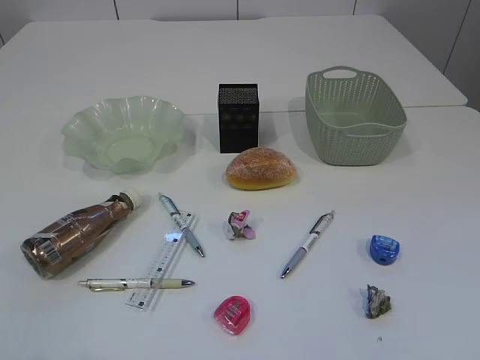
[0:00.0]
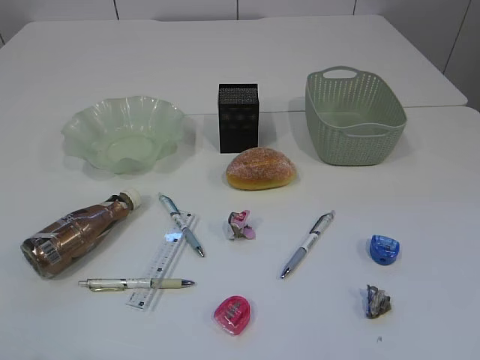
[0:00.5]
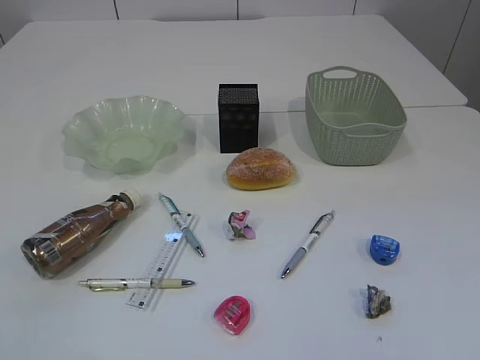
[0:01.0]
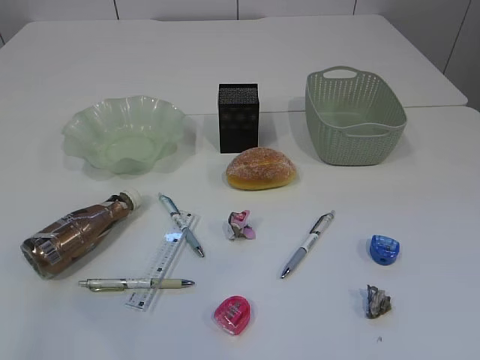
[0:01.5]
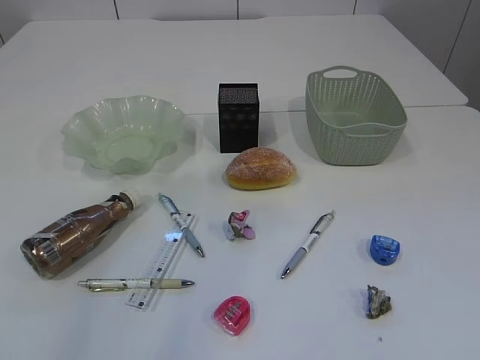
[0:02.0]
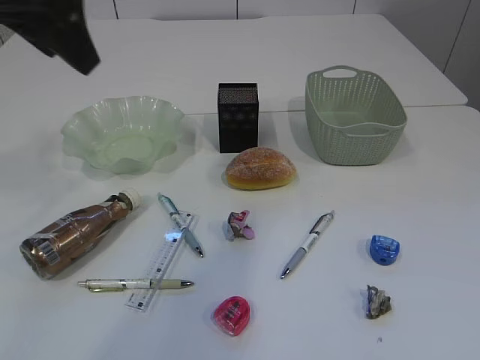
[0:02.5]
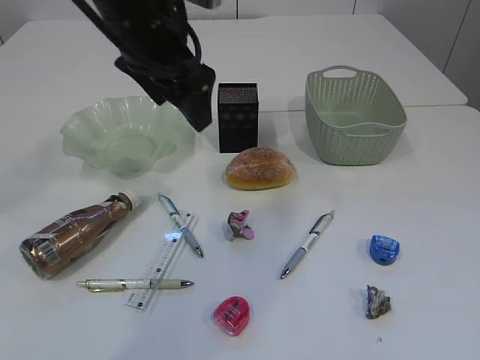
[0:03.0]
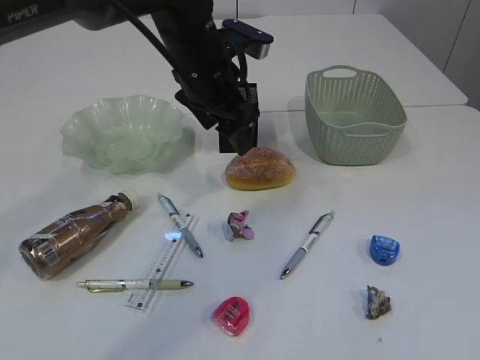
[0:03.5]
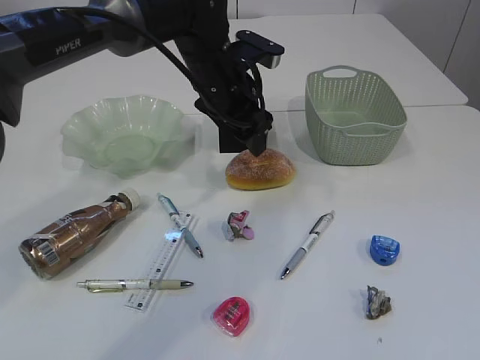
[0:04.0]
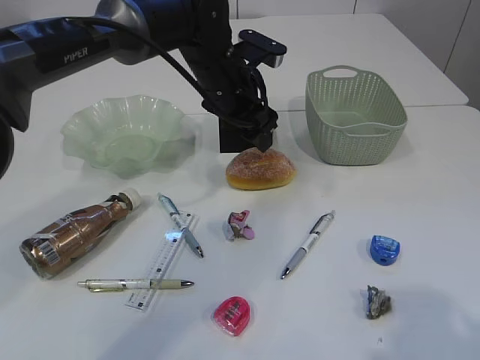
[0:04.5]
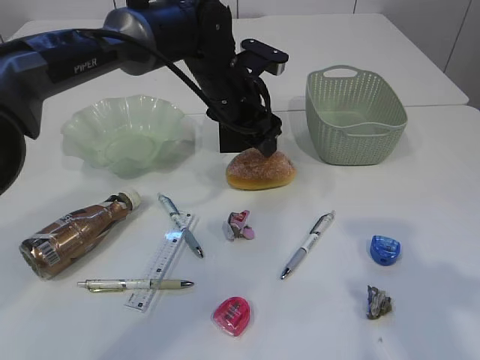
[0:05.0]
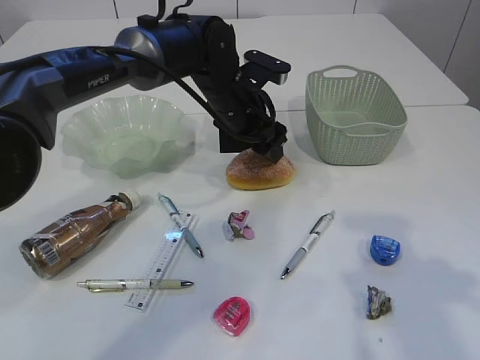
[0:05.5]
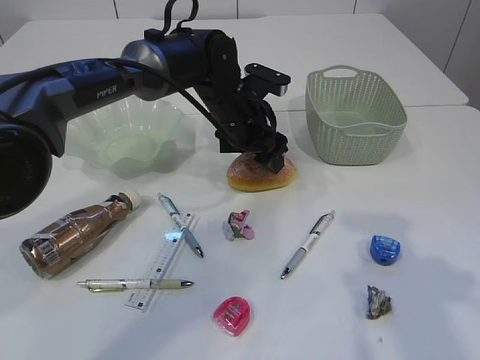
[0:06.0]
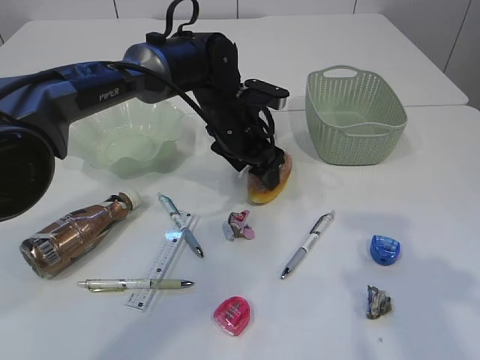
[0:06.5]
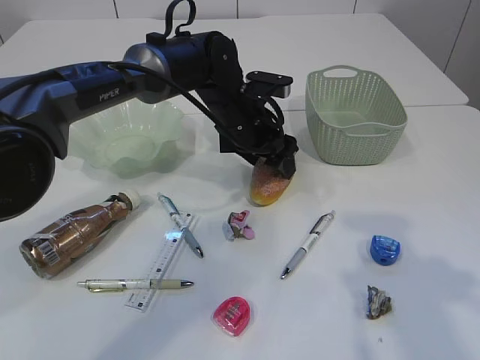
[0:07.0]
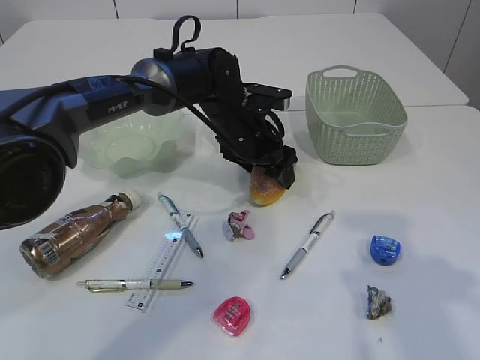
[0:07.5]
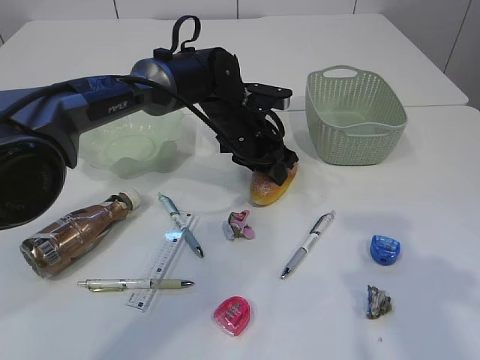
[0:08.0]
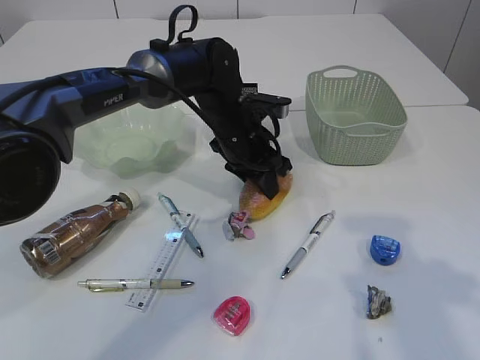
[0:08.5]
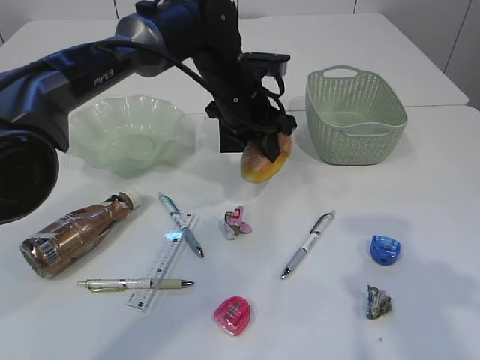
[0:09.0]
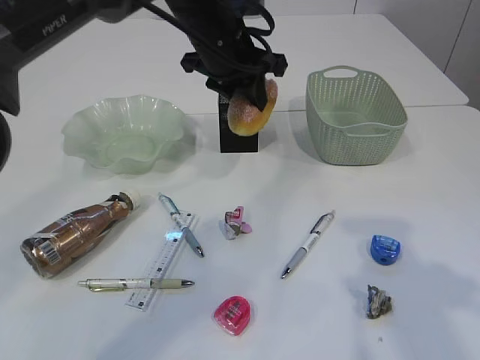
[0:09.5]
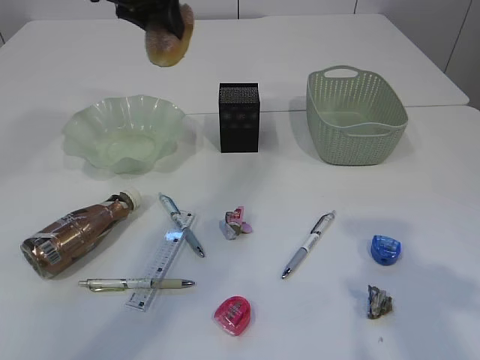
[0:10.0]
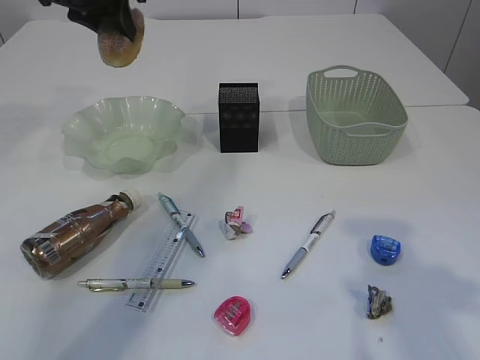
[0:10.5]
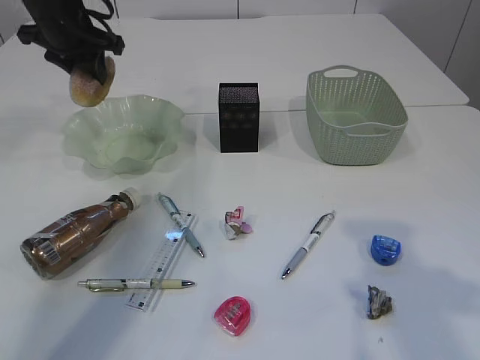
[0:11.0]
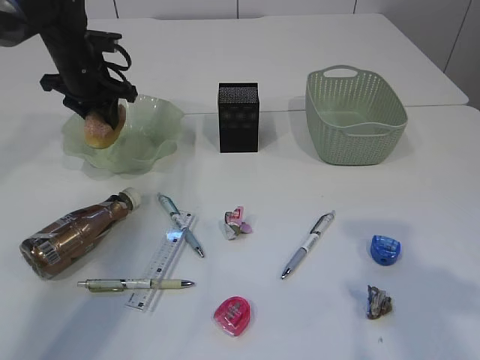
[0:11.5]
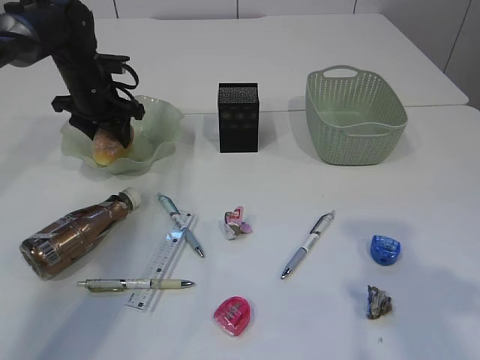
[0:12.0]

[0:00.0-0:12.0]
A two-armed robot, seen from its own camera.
0:02.0 to 0:04.0: The left gripper travels to the right, forward and downward by some 40 cm, and opens its fingers.
0:04.0 to 0:06.0: The left gripper travels downward by some 5 cm, while the right gripper is displaced forward by roughly 20 cm.
0:06.0 to 0:08.0: The left gripper closes up.
0:08.0 to 0:10.0: The left gripper shifts some 25 cm upward and to the left.
0:10.0 to 0:12.0: The left gripper heads downward and to the left, covering about 20 cm.

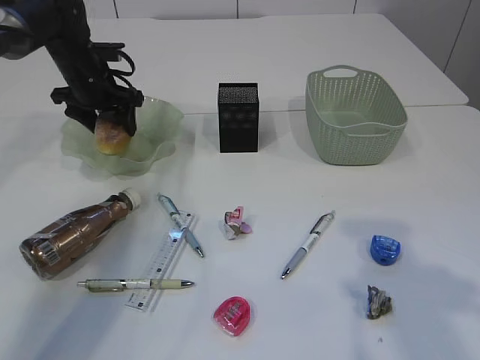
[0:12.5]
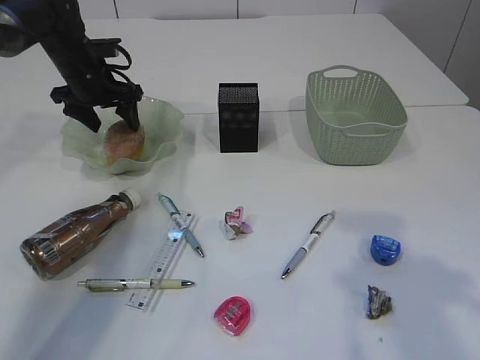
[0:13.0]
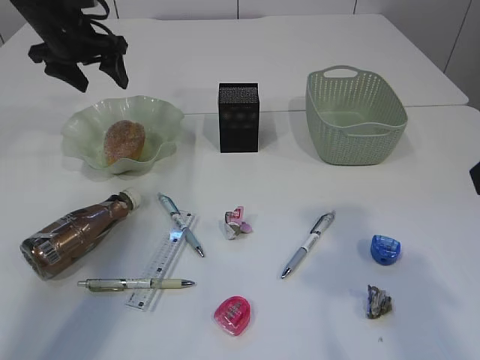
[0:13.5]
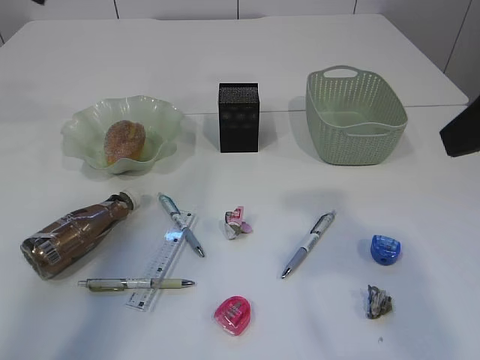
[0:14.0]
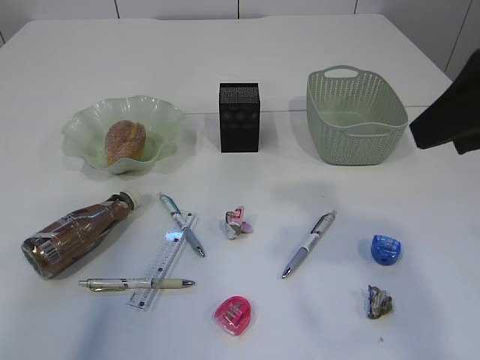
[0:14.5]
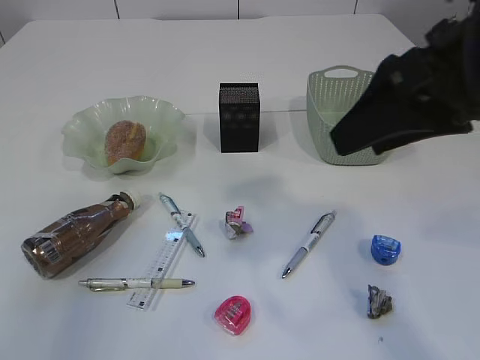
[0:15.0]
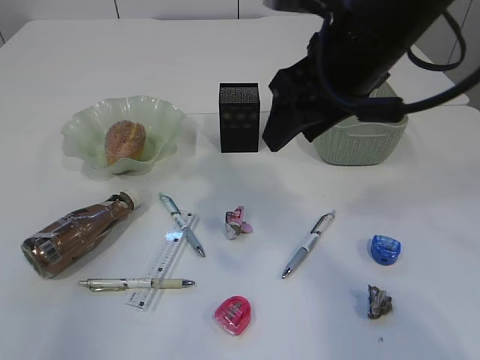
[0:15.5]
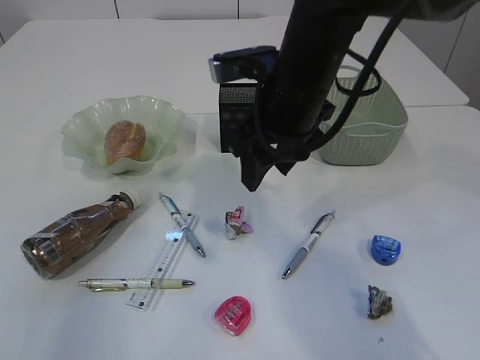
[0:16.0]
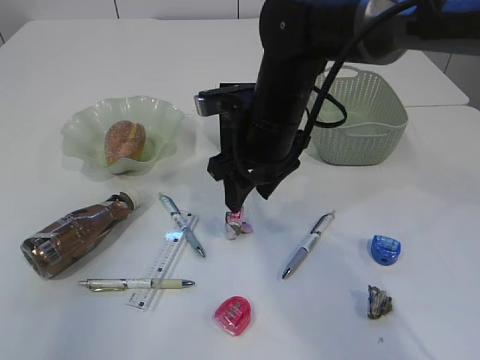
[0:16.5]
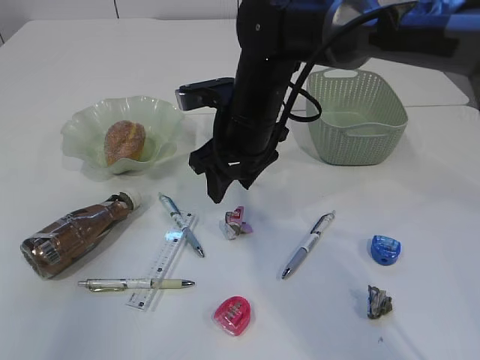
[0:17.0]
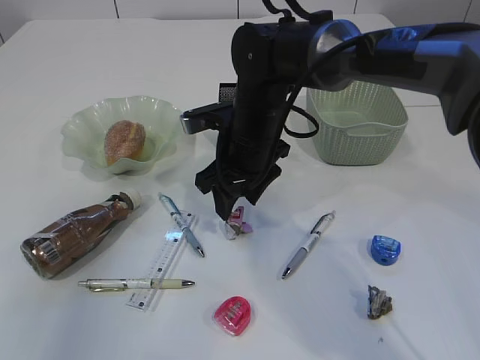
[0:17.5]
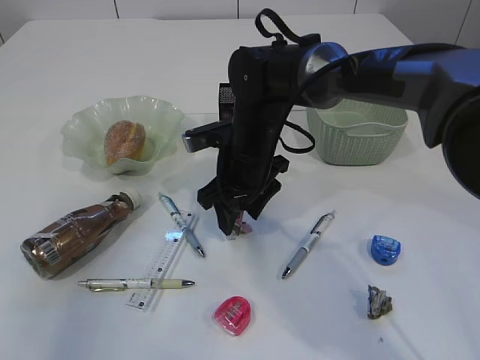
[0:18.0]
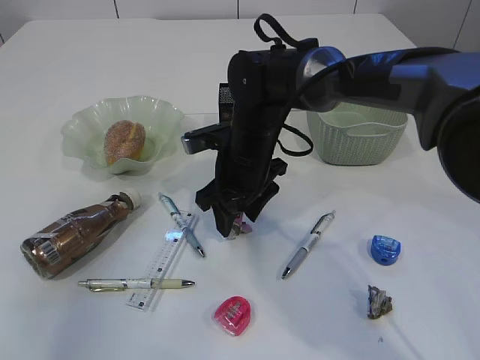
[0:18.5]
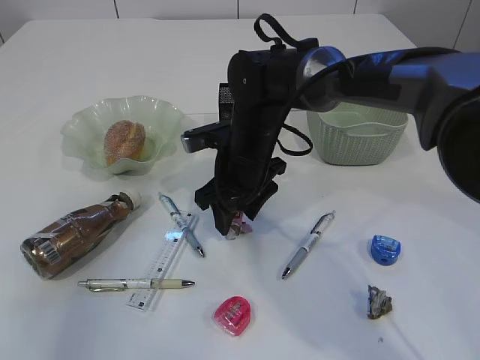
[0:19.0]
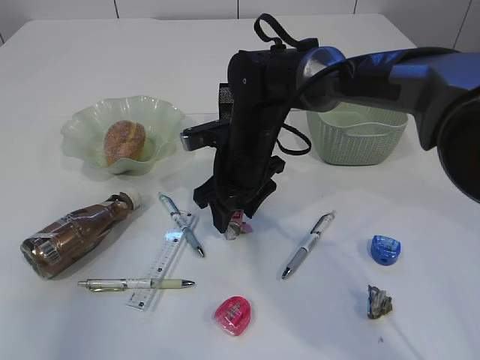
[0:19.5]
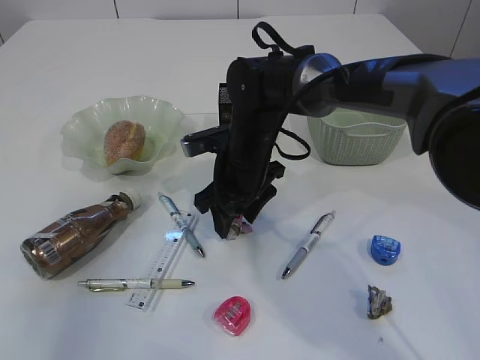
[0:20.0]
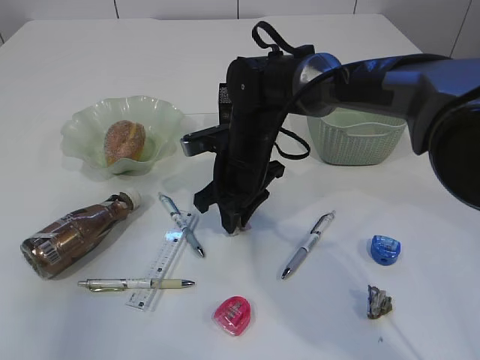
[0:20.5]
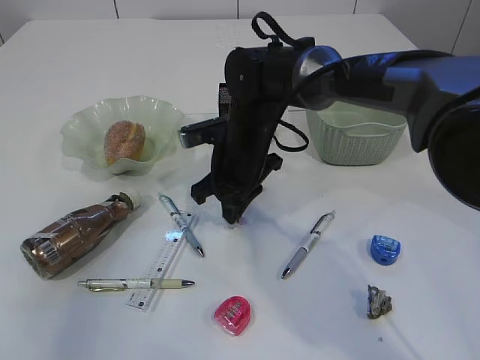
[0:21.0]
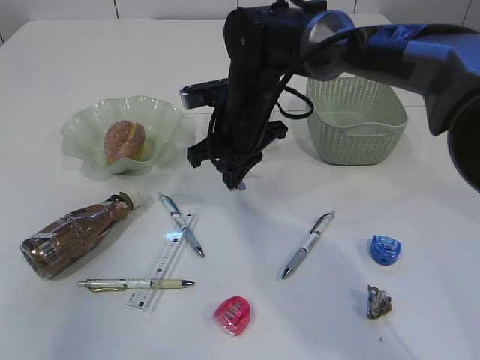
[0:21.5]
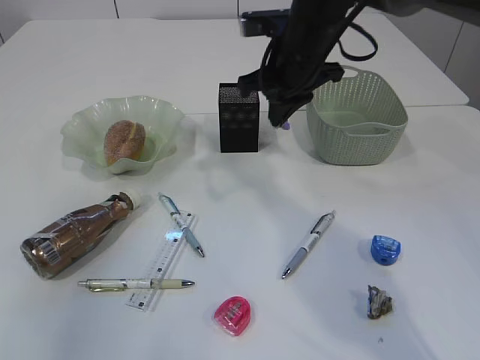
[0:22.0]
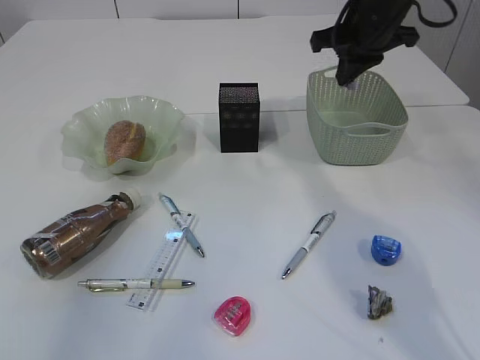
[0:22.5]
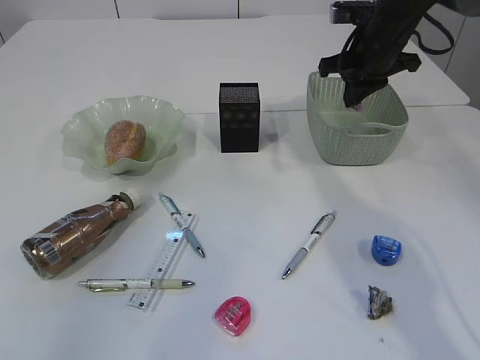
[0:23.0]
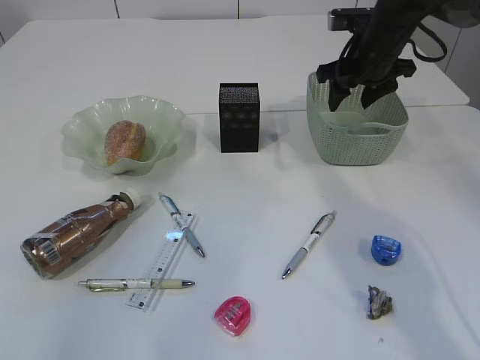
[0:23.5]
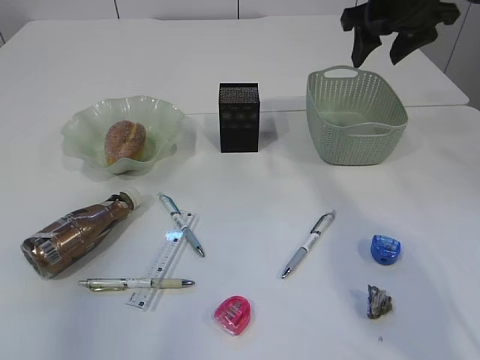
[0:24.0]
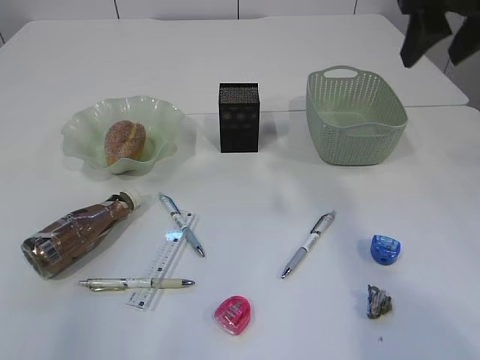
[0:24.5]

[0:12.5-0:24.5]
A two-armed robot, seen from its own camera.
Step, 0:14.0 to 0:21.5: Pick up the waste paper.
Step, 0:22.0 to 0:24.0: Place the waste paper in the basket.
0:12.5 to 0:14.5: The right gripper shifts by approximately 5 cm, while the left gripper is displaced upward and backward by some 35 cm.
0:14.5 to 0:16.5: The right gripper is displaced to the left, forward and downward by about 30 cm. The left gripper is displaced backward by roughly 10 cm.
0:16.5 to 0:18.5: The right gripper goes roughly 5 cm downward.
0:18.5 to 0:20.5: The right gripper closes its fingers.
0:20.5 to 0:22.5: The right gripper shifts approximately 25 cm to the right, upward and forward, and closes.
0:22.5 to 0:24.5: The right gripper travels backward and upward by roughly 15 cm, and opens.

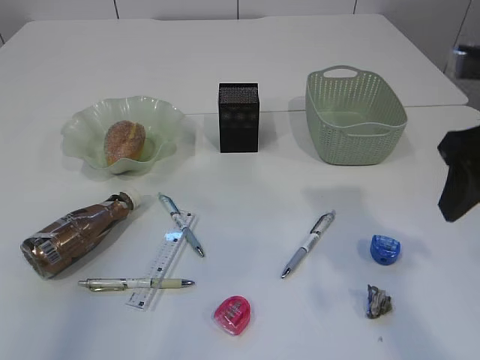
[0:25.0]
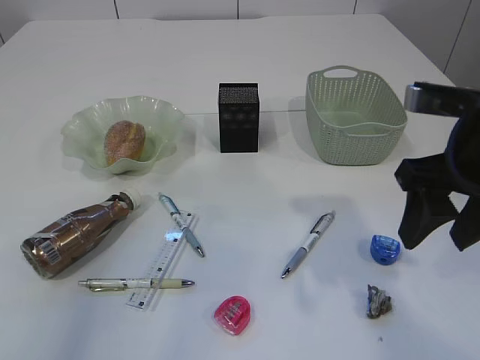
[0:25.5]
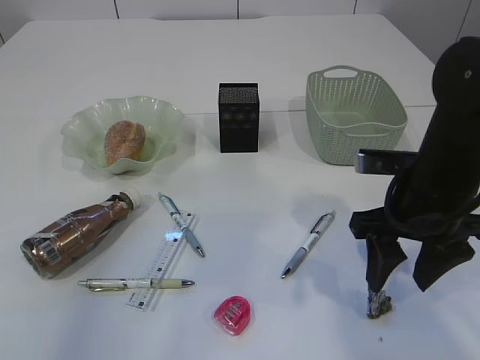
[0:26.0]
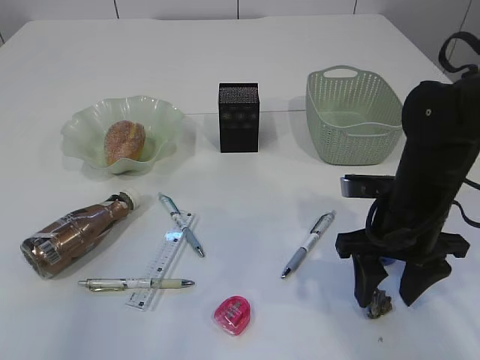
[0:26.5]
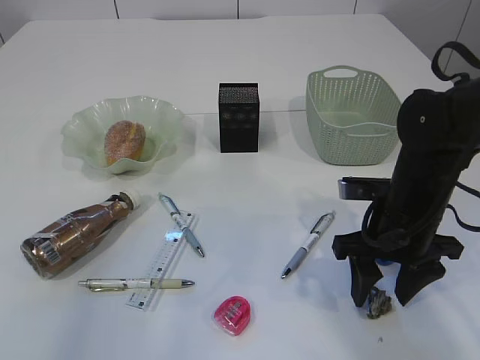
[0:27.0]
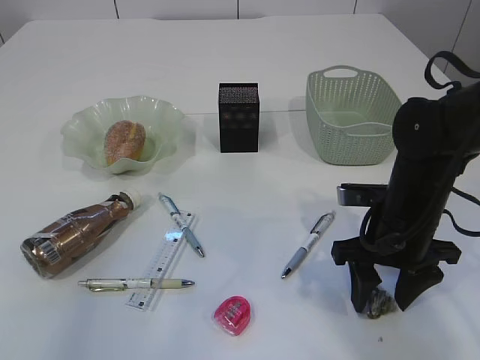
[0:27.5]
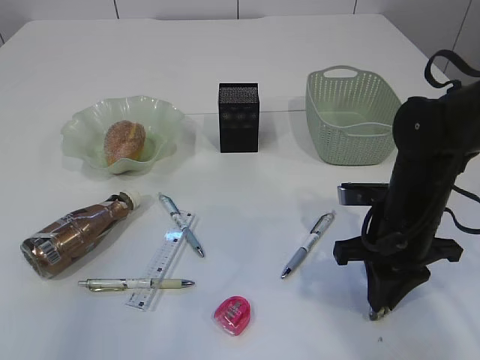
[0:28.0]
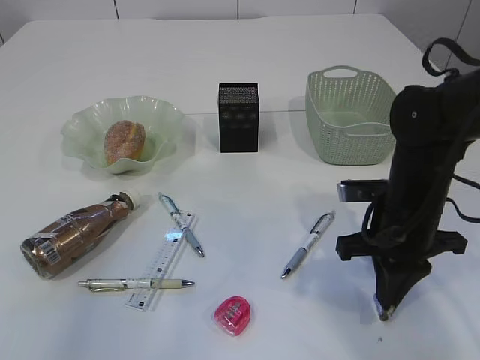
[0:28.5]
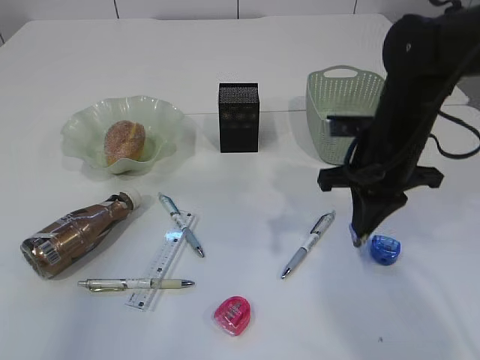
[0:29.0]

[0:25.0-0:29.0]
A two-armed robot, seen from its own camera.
Step, 0:25.0 to 0:28.5: Pick up the waste paper.
0:25.0 to 0:27.0: The right gripper is displaced downward by about 15 cm.
0:27.0 to 0:29.0: The right gripper ends up approximately 5 cm from where it was, and closes up.
